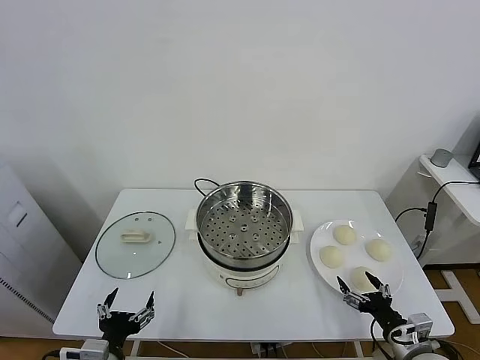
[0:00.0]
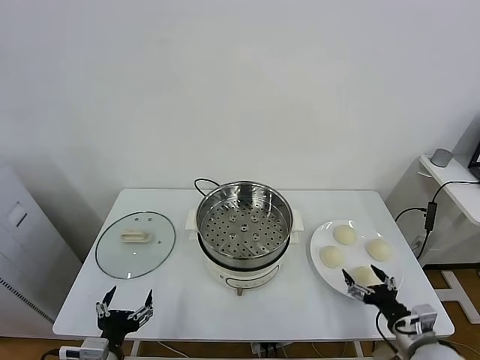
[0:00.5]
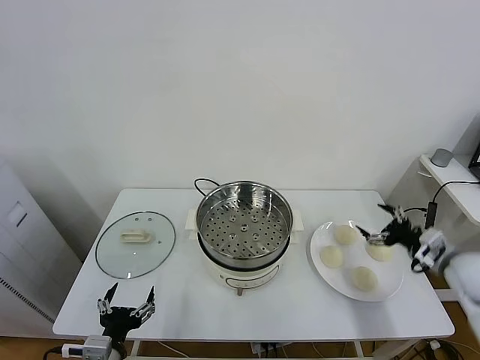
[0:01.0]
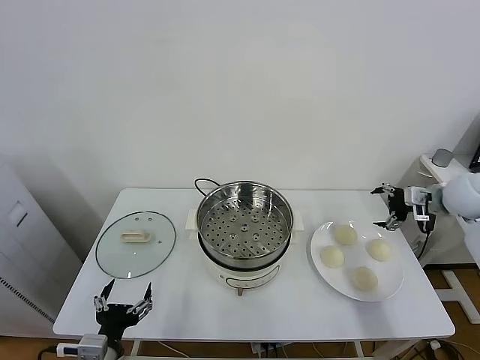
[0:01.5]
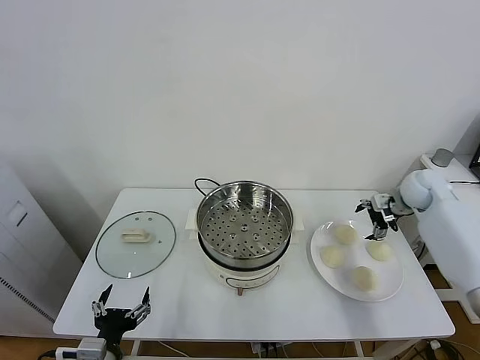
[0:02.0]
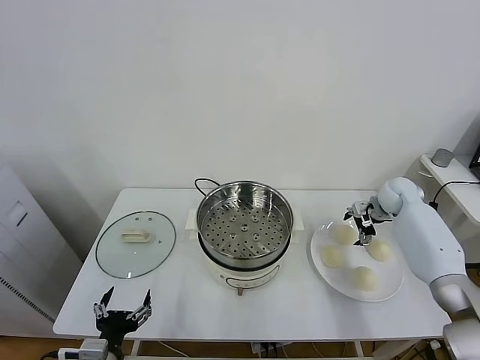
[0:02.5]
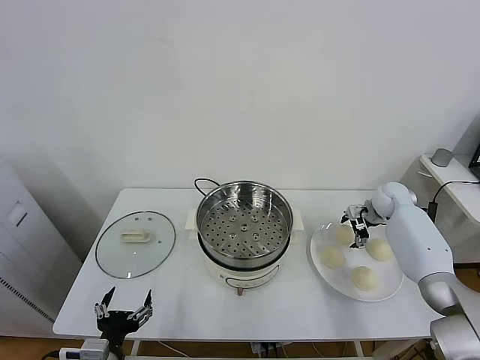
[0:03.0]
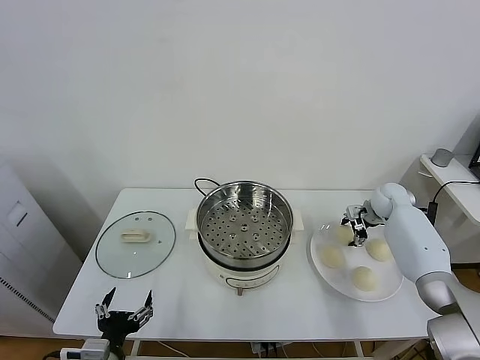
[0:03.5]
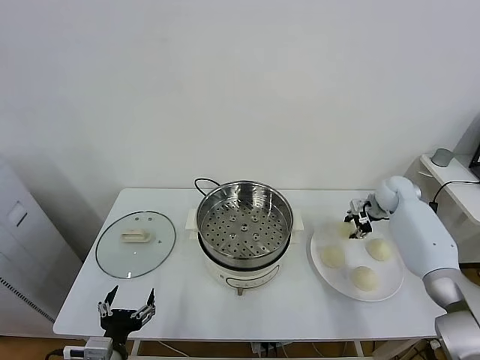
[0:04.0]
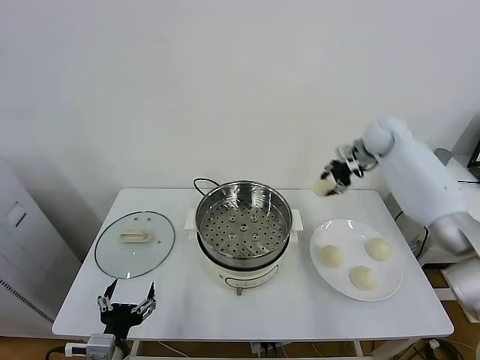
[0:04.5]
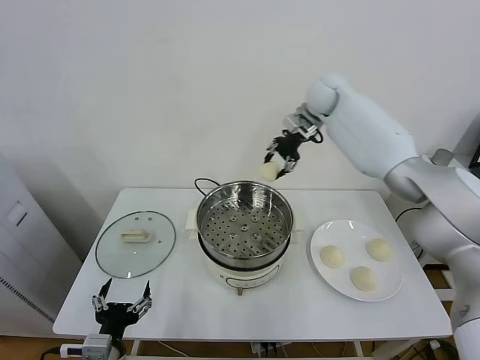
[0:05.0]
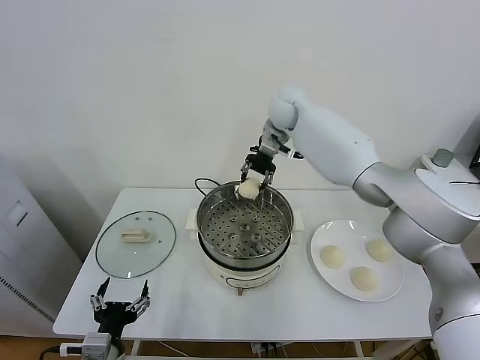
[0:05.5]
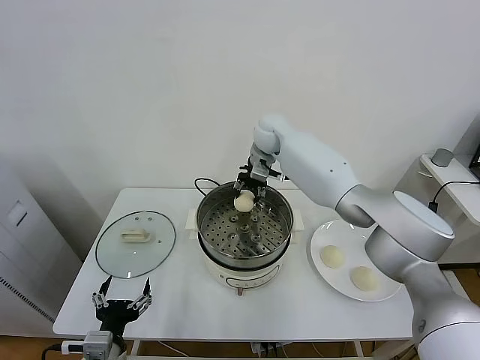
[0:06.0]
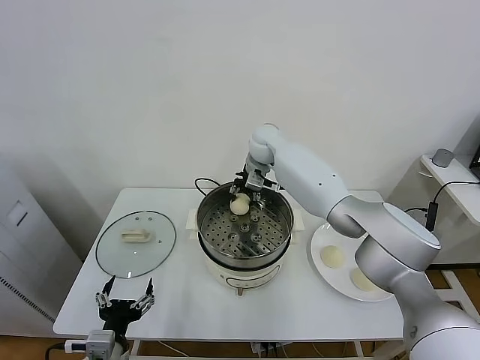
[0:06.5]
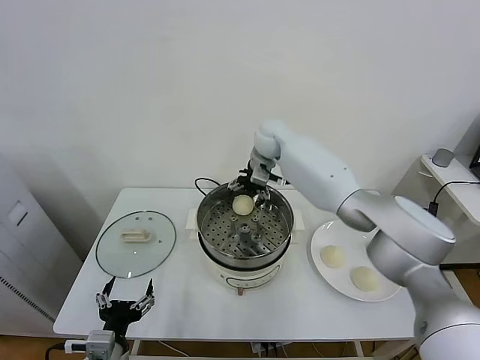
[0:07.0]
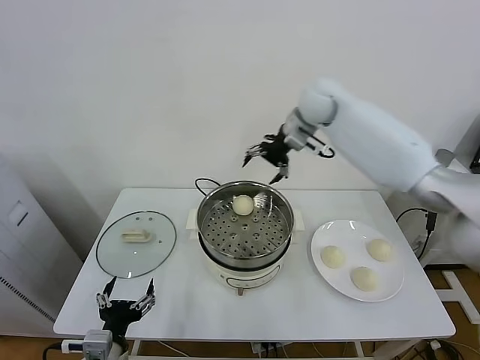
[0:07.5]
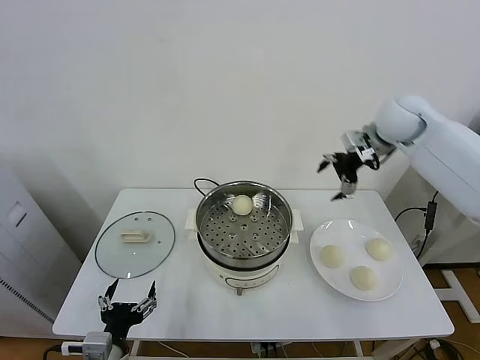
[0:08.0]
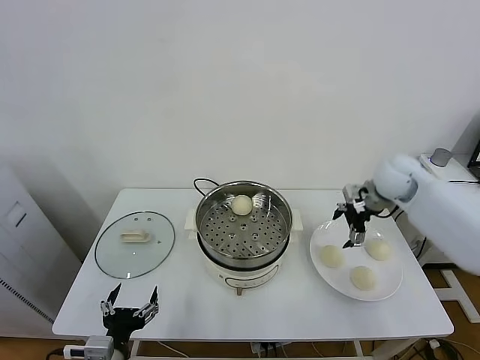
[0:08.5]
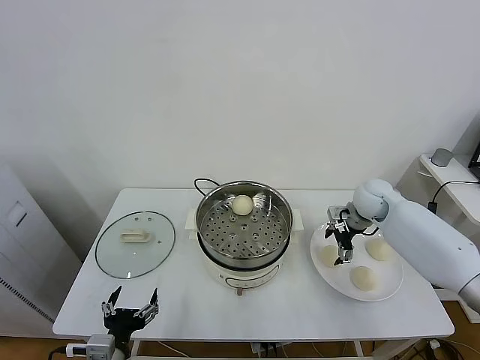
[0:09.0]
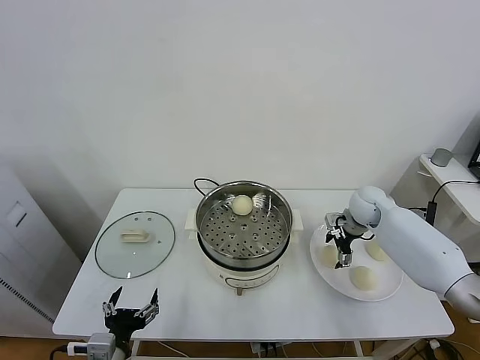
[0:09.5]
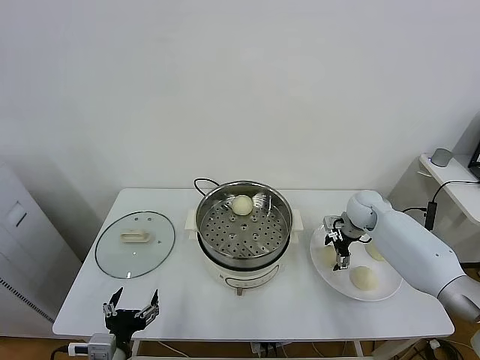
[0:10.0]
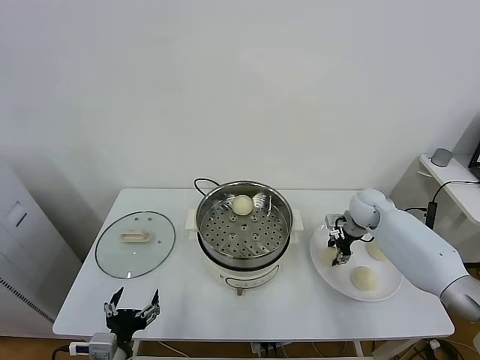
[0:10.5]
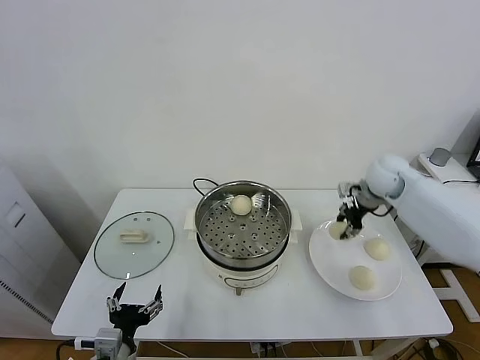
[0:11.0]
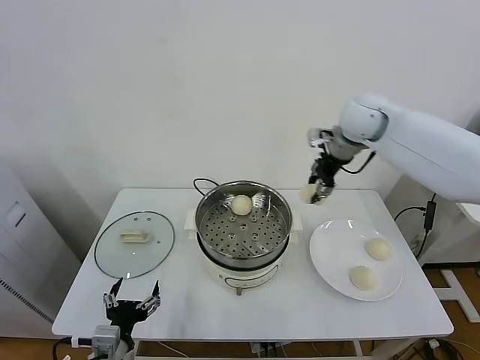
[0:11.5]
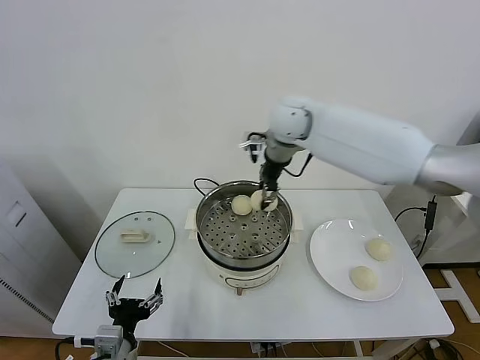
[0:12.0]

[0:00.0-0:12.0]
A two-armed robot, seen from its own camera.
Task of the whole recording: take steamed baozi put them in steamer.
Step, 0.0 to 3.5 s: Grasp the baozi in the plate with right gripper.
Step, 4.0 to 7.0 s: Place the baozi on the steamer with right gripper.
Step, 7.5 to 10.5 s: Grasp the baozi in the plate with right gripper.
2.0 to 4.0 s: The right gripper closes.
4.0 to 6.0 s: The right gripper goes approximately 35 cm to the left.
6.0 to 8.0 s: The right gripper goes some 25 cm to the right, and opens.
8.0 to 10.0 s: The right gripper shifts roughly 25 cm downward.
10.0 to 12.0 s: The right gripper travels to the left and upward by approximately 35 cm, and closes up.

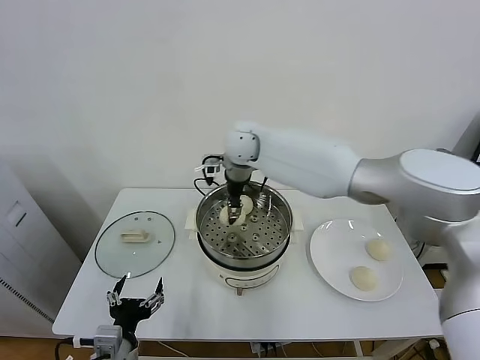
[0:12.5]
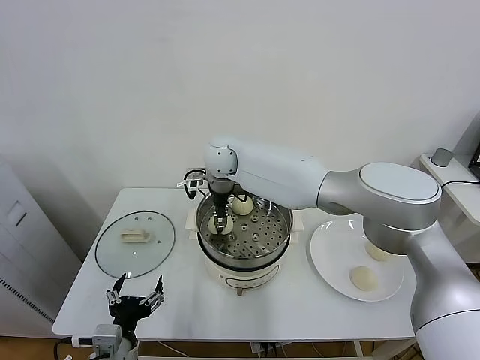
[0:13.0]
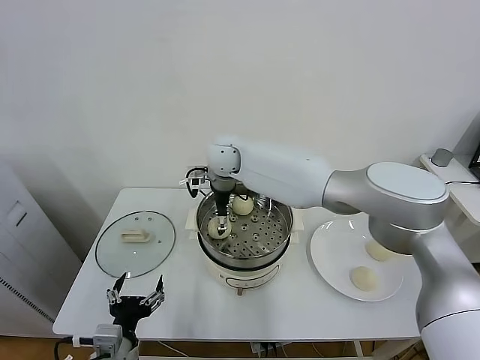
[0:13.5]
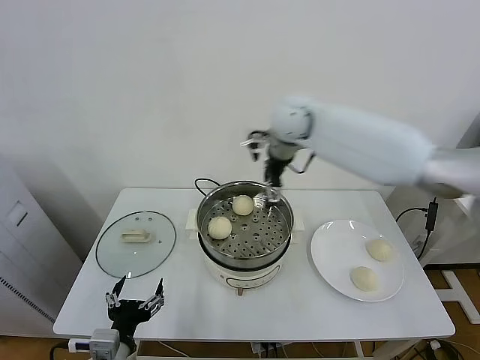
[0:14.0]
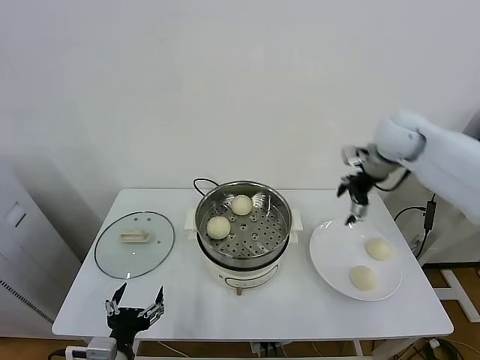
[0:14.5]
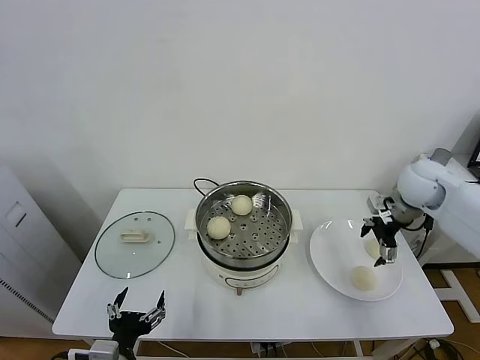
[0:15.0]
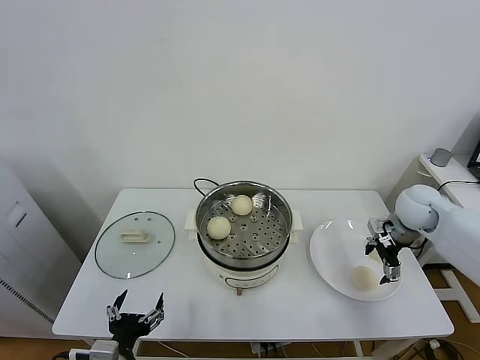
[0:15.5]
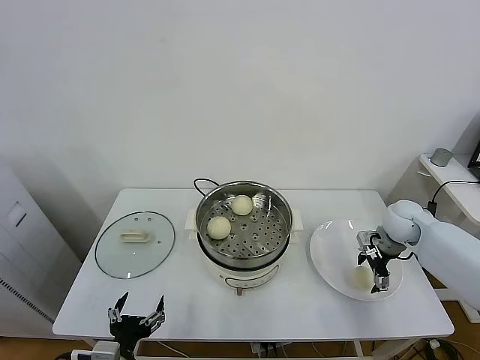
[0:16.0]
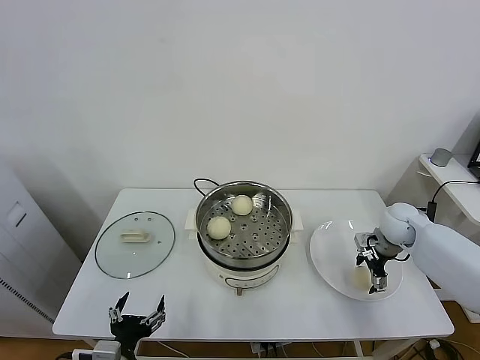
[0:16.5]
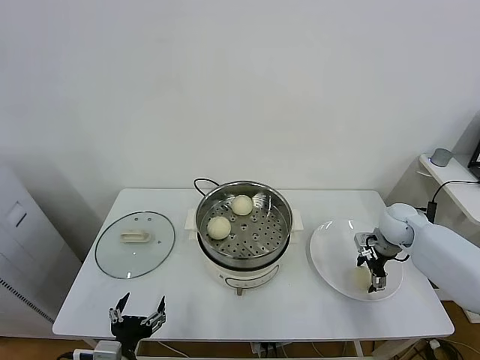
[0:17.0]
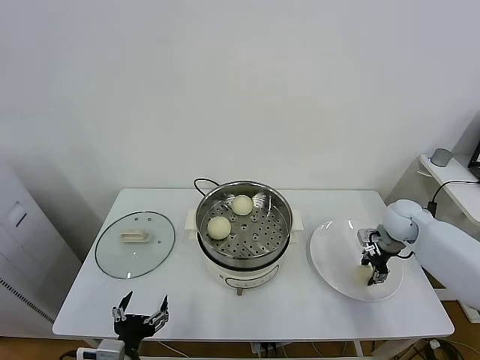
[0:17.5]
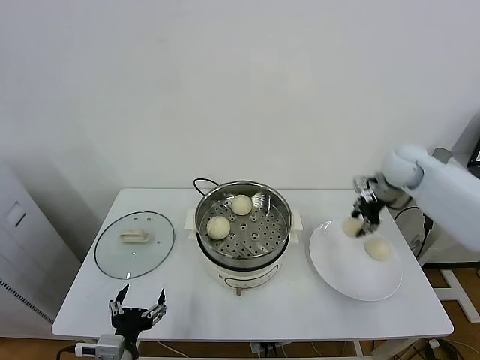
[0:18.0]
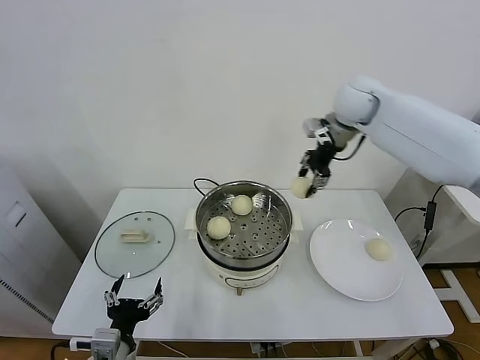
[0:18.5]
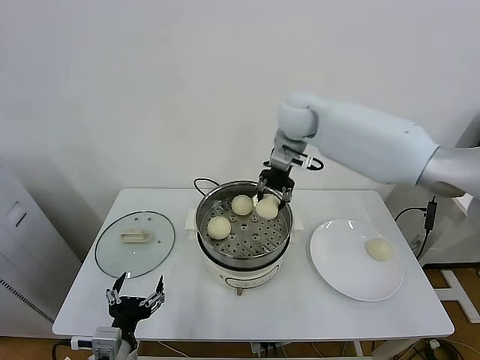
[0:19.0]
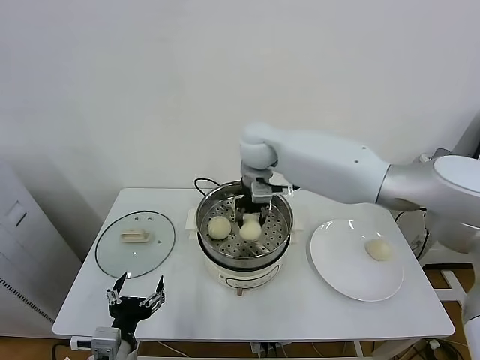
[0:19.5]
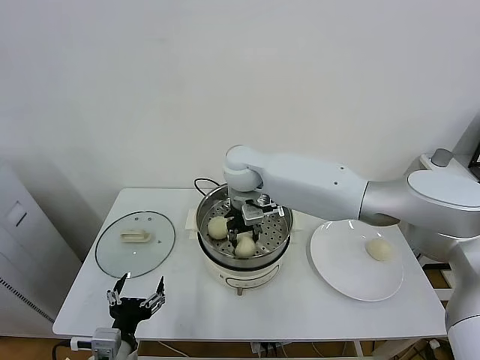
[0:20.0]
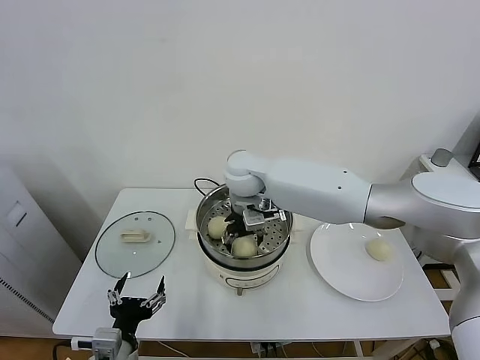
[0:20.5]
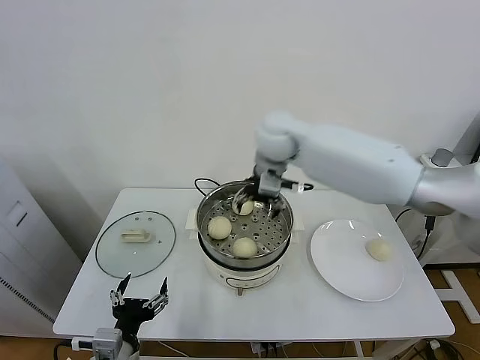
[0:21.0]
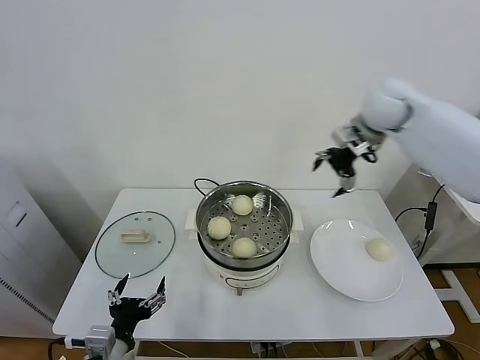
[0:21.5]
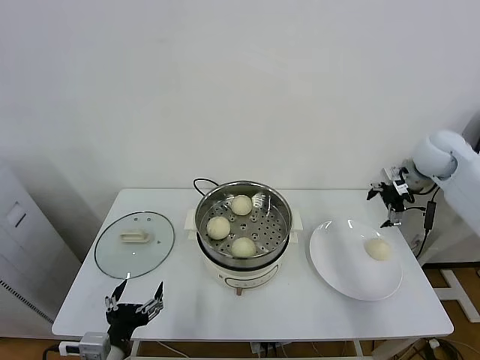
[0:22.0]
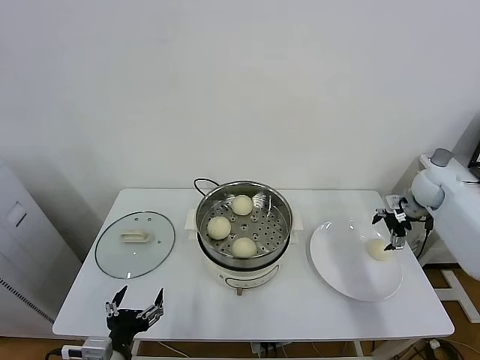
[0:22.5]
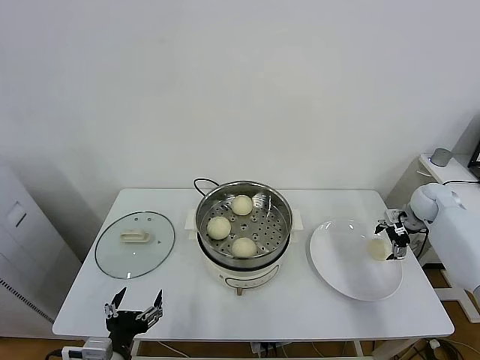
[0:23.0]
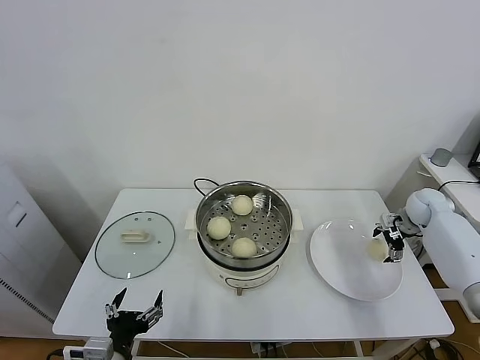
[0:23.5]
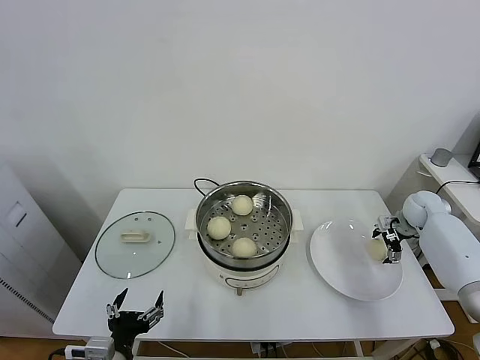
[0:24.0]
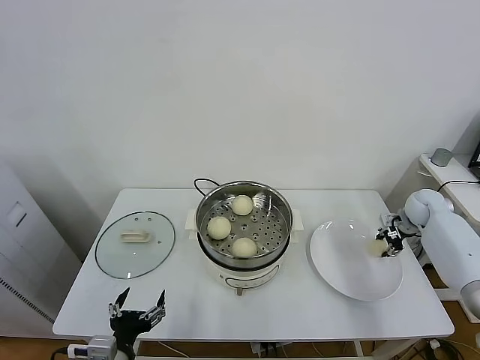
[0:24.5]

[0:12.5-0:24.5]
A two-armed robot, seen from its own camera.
Task of the whole recording: take steamed baozi put them in steamer.
Step, 14.0 to 17.0 s: Grasp the baozi in the plate with right gripper.
Step, 17.5 to 20.5 s: Place the baozi on the steamer with right gripper.
Step, 21.0 to 24.5 s: Grasp the baozi in the plate with right gripper.
12.5 to 14.5 s: The right gripper heads to the right, covering roughly 35 cm, and opens.
14.5 to 16.5 s: The right gripper moves downward, about 20 cm.
16.5 to 18.5 s: The right gripper heads upward and to the left, covering approximately 35 cm, and closes up.
18.5 to 20.5 s: The right gripper moves to the left and downward, approximately 25 cm, and opens up.
20.5 to 22.5 s: The right gripper heads to the right, covering roughly 50 cm.
22.5 to 24.5 s: The right gripper shifts approximately 5 cm downward, and closes its fingers.

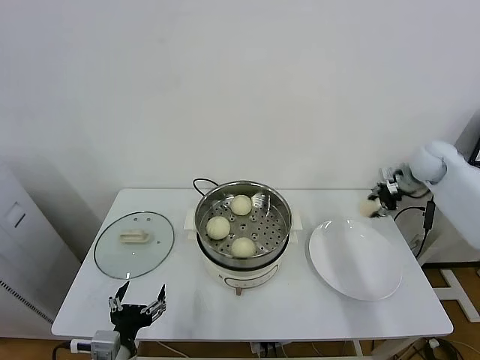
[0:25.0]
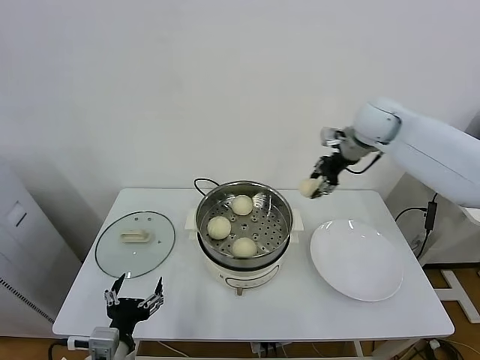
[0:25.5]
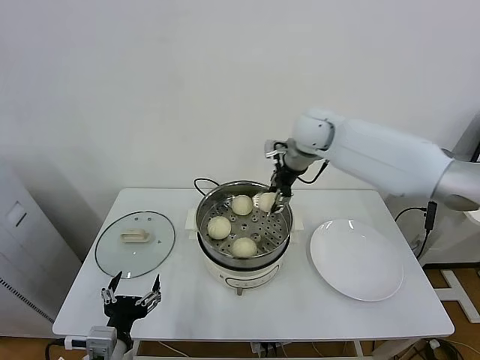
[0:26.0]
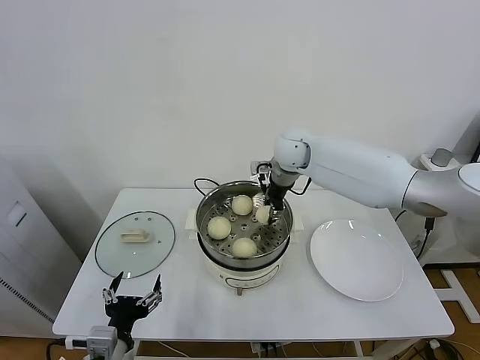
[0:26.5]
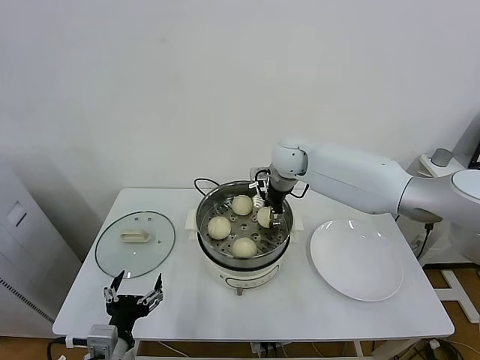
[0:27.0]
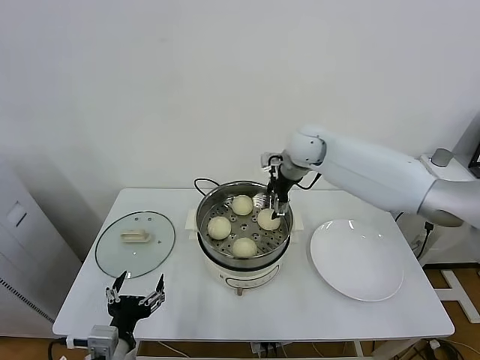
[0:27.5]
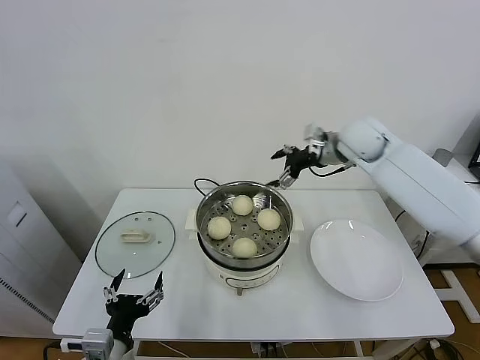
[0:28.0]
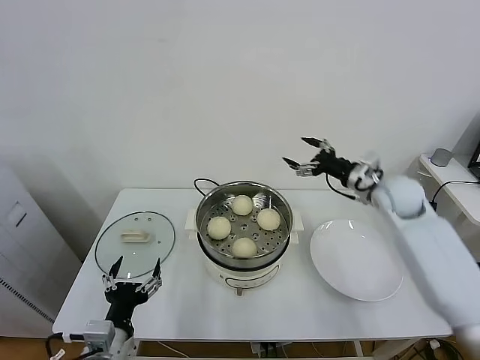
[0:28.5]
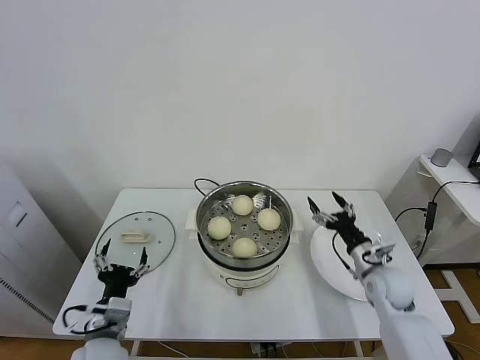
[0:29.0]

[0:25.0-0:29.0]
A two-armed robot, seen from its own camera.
Task of the whole recording: take steamed baozi put them in steamer.
Step, 25.0 to 27.5 s: Place the baozi on the steamer with right gripper.
25.0 to 27.0 s: The right gripper goes some 35 cm to the left, and opens.
27.0 to 29.0 s: The left gripper heads forward, covering approximately 5 cm. Meanwhile the right gripper goes about 40 cm downward, to the right and backward, and opens.
